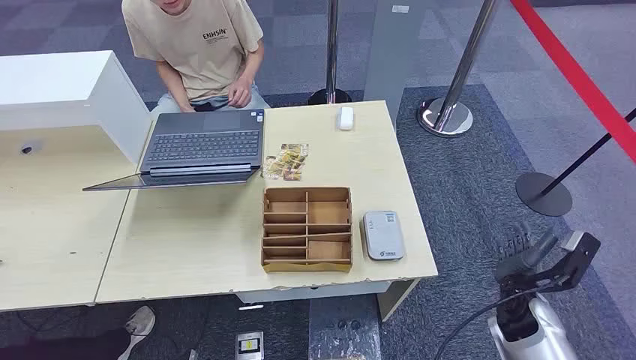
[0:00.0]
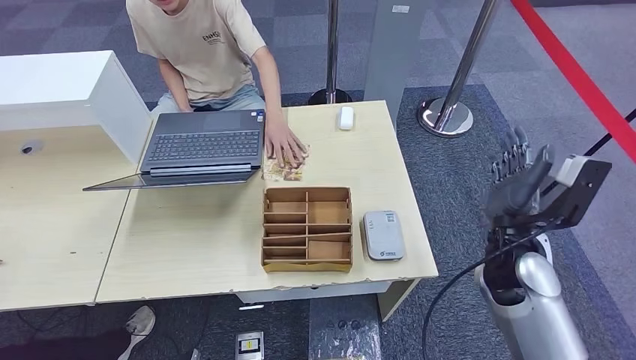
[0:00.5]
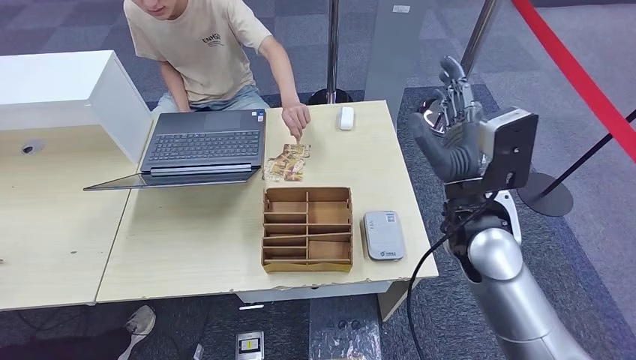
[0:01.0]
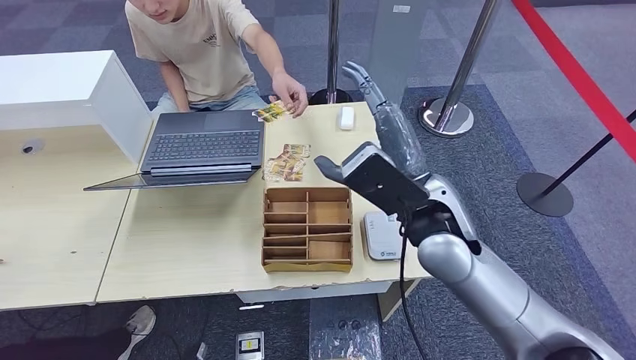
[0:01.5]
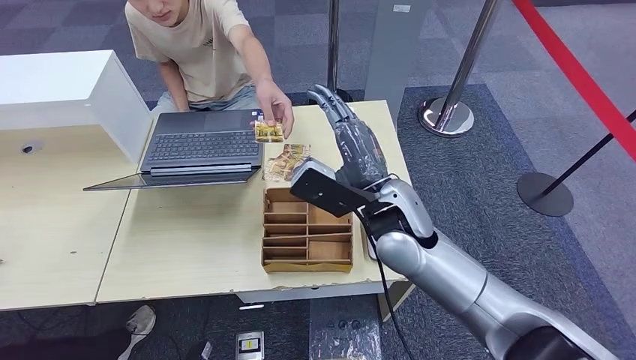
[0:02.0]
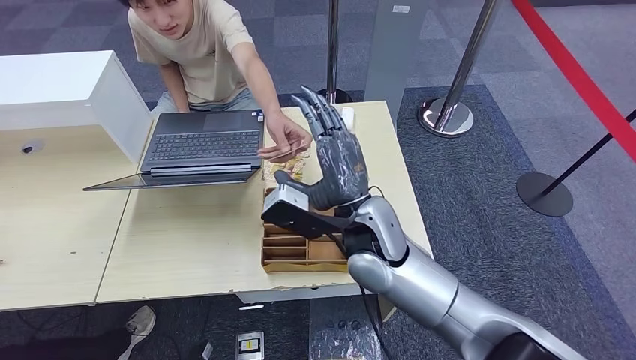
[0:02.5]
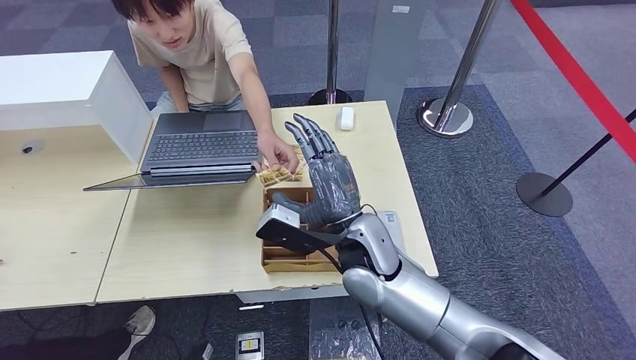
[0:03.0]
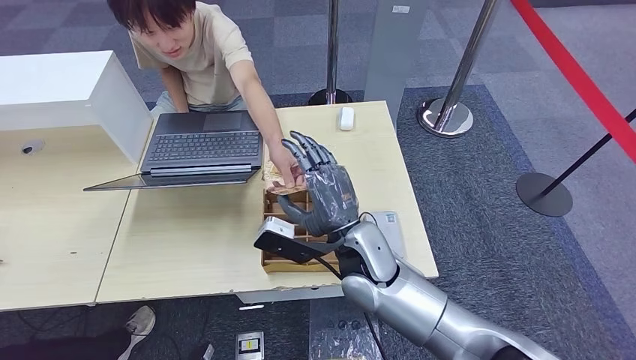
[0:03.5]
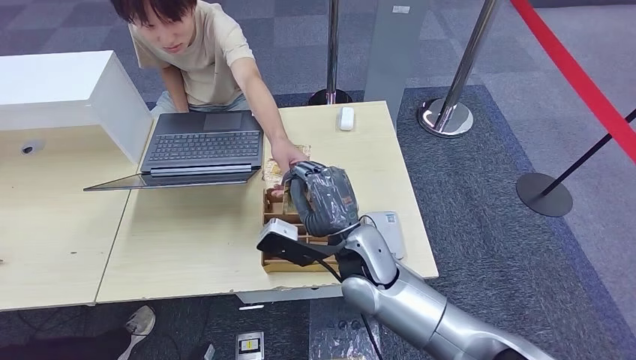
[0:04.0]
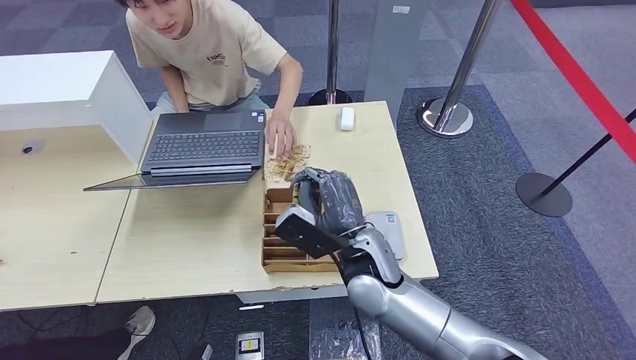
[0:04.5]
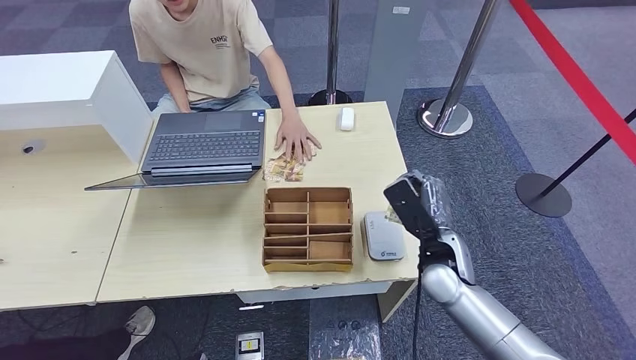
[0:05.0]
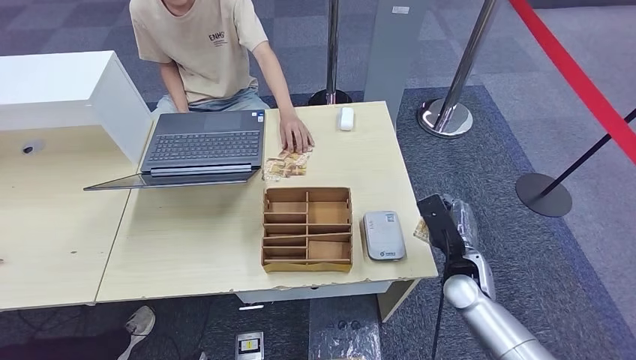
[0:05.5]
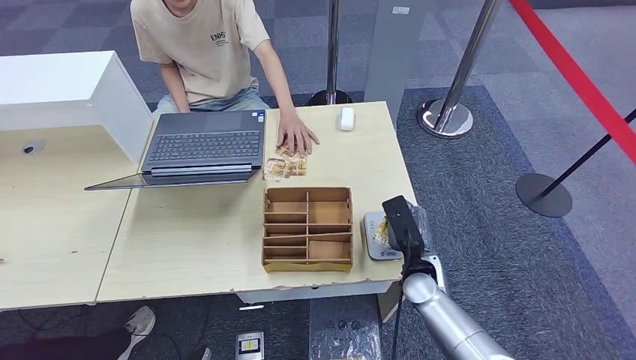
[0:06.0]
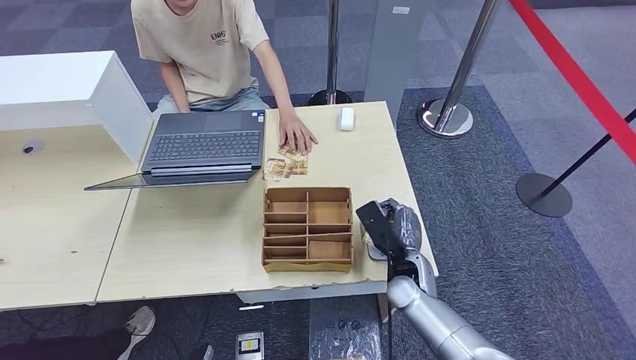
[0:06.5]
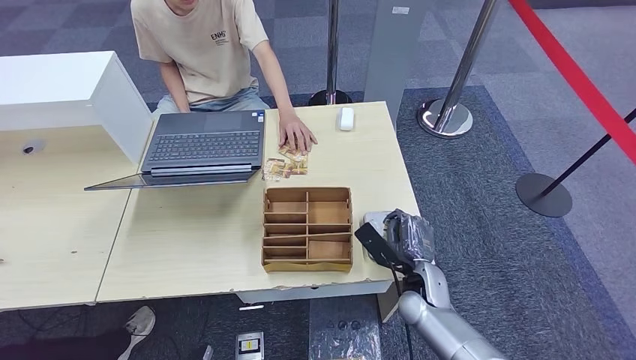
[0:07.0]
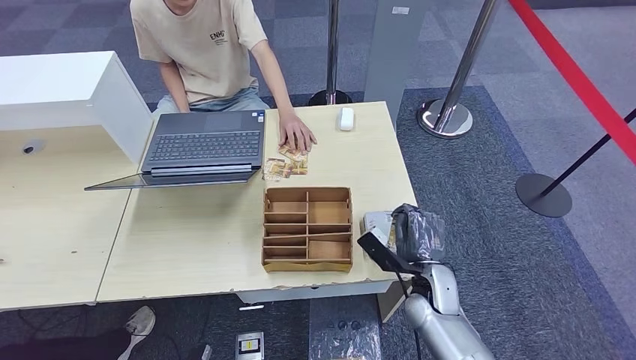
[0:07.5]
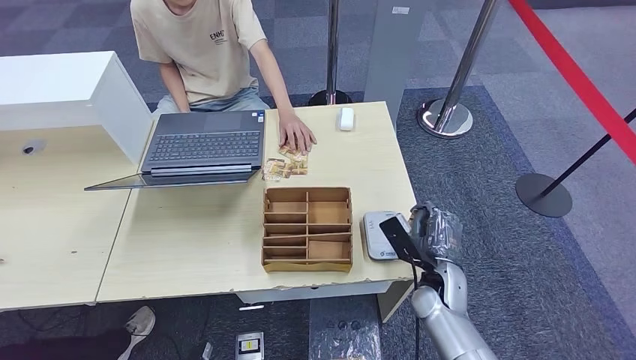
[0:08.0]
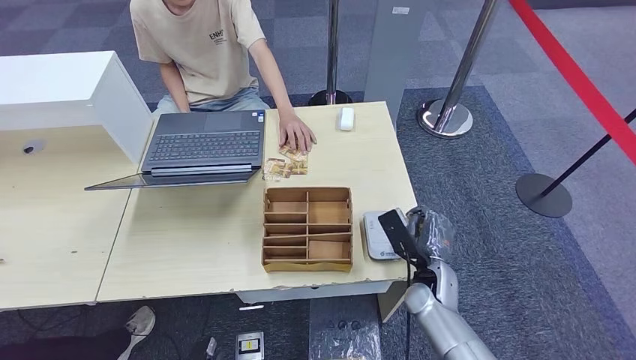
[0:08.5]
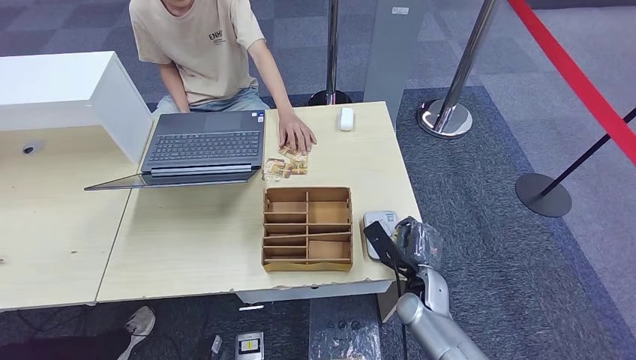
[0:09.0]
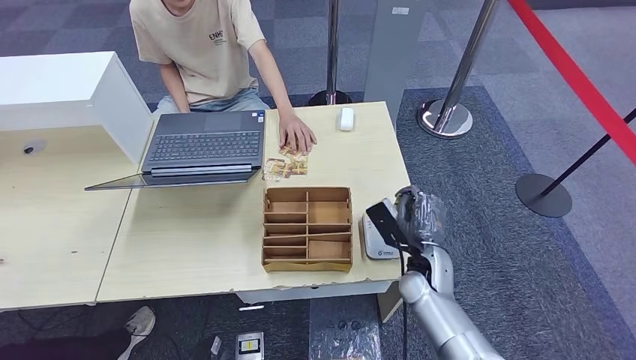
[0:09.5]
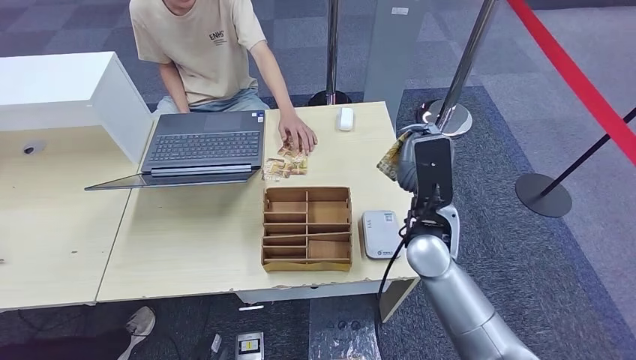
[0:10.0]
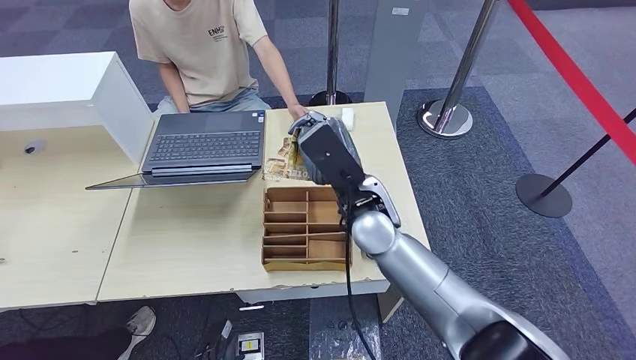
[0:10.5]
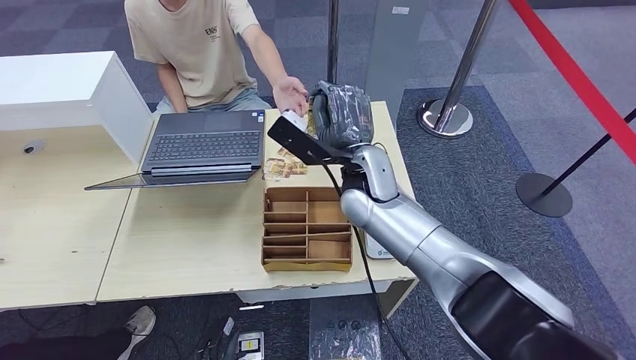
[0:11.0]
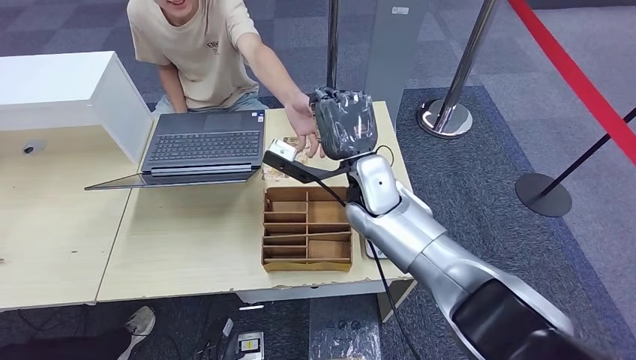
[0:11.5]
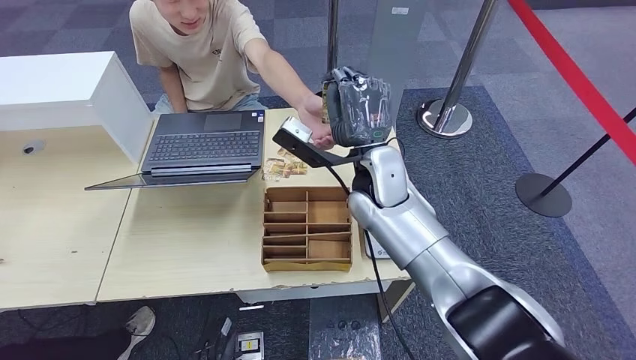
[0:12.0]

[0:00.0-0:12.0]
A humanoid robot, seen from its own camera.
Step, 0:00.0 to 0:04.0: Take the ID card from the person's hand.
Step, 0:04.5 to 0:06.5: Place the ID card on the card reader.
0:02.0 to 0:04.0: The right hand is displaced downward by about 10 cm.
0:04.0 to 0:06.0: The right hand is displaced to the right and downward by approximately 20 cm.
0:08.0 to 0:10.0: The right hand shifts roughly 20 cm upward and forward.
0:10.0 to 0:12.0: The right hand moves to the left, forward and upward, approximately 15 cm.

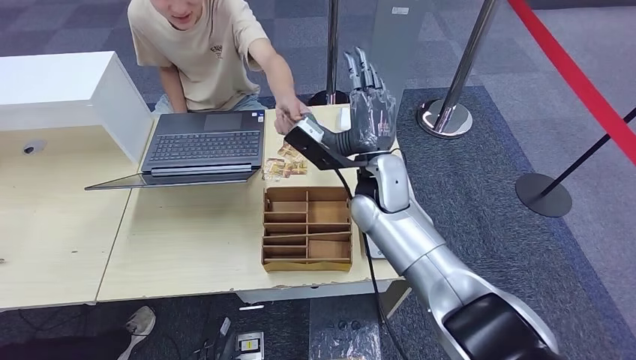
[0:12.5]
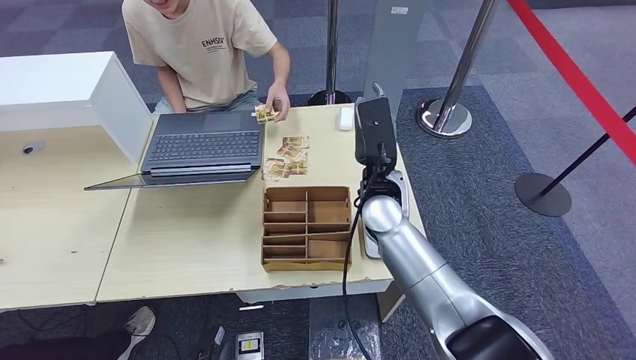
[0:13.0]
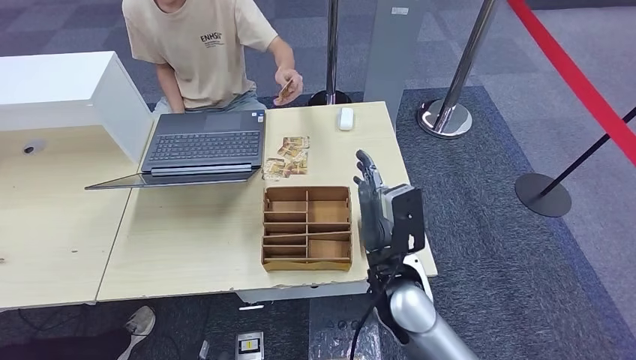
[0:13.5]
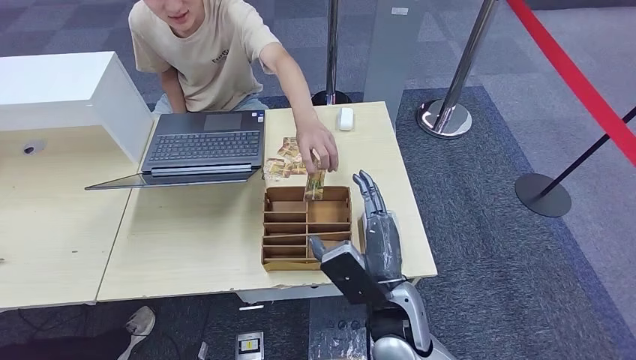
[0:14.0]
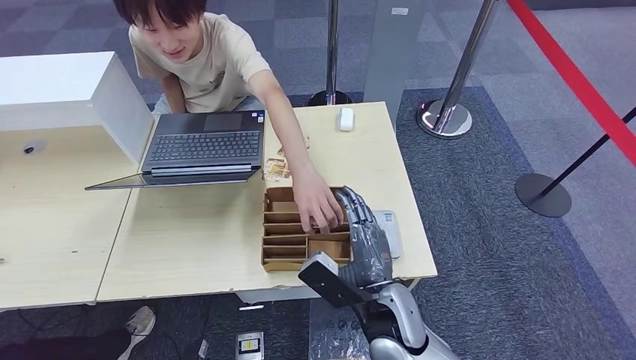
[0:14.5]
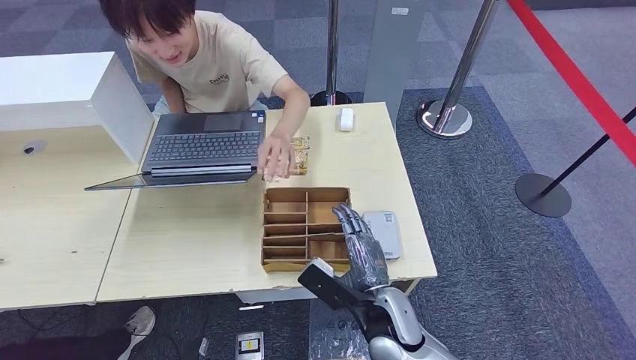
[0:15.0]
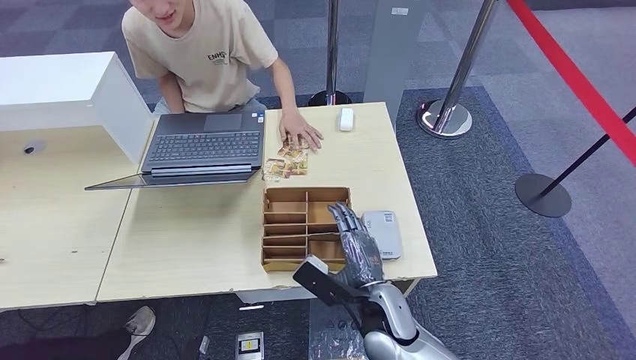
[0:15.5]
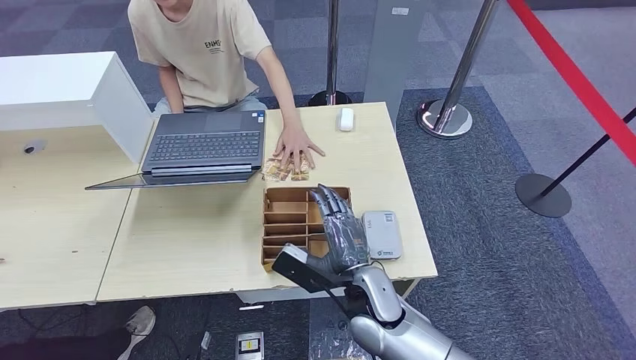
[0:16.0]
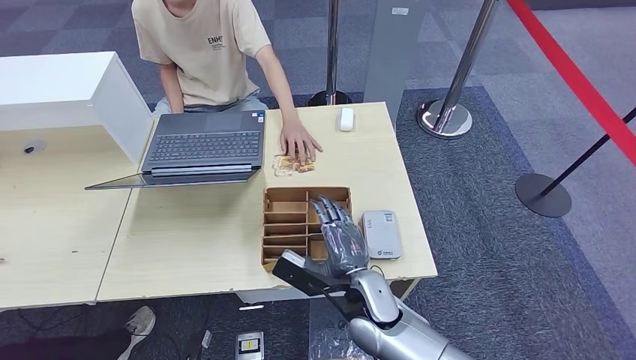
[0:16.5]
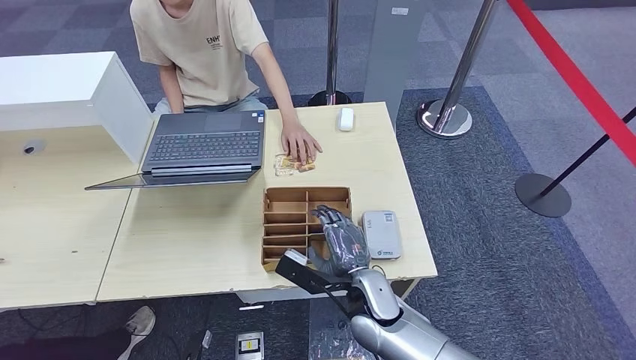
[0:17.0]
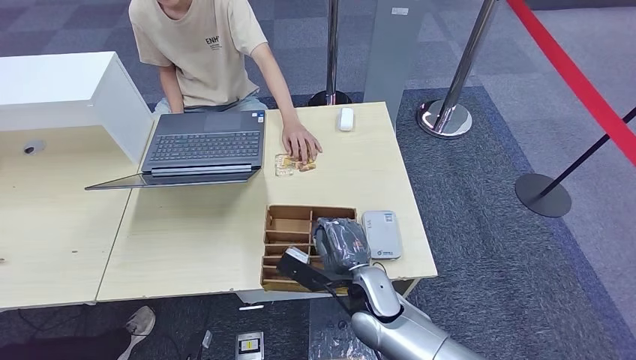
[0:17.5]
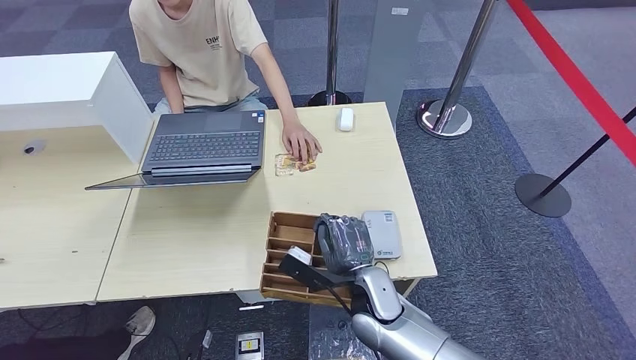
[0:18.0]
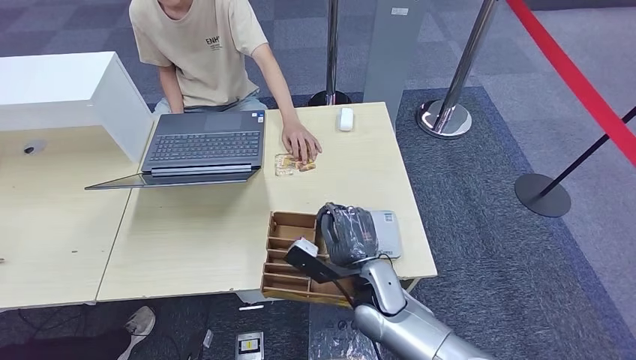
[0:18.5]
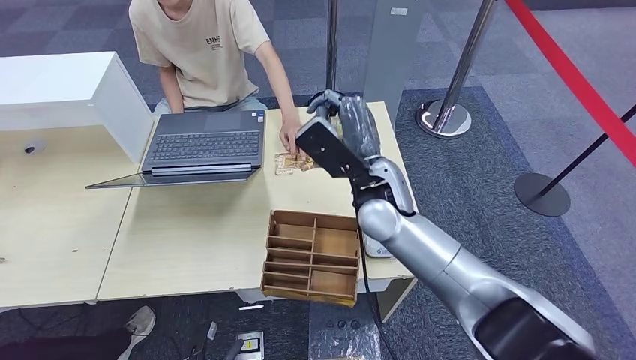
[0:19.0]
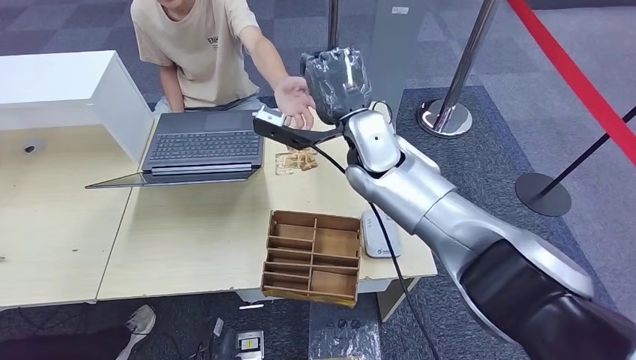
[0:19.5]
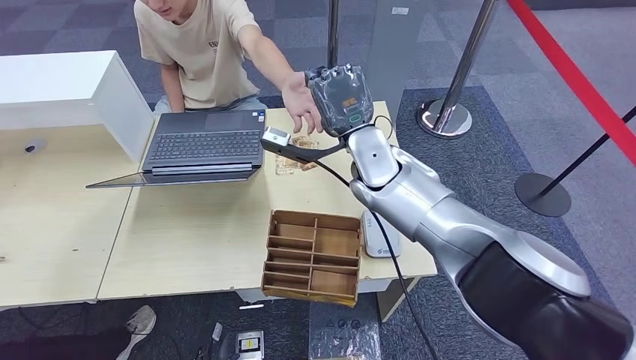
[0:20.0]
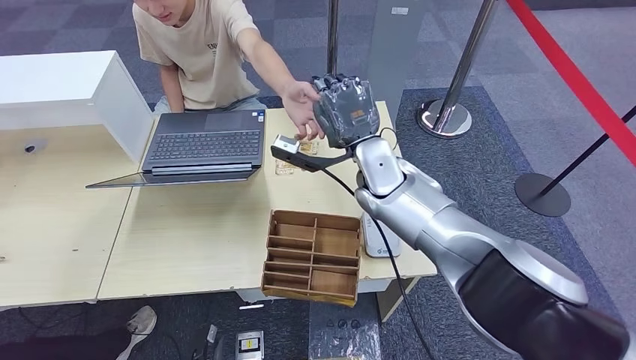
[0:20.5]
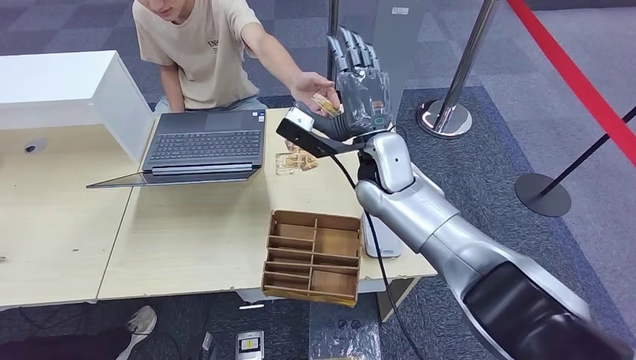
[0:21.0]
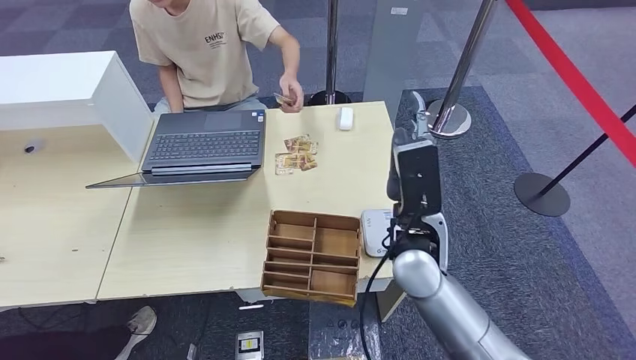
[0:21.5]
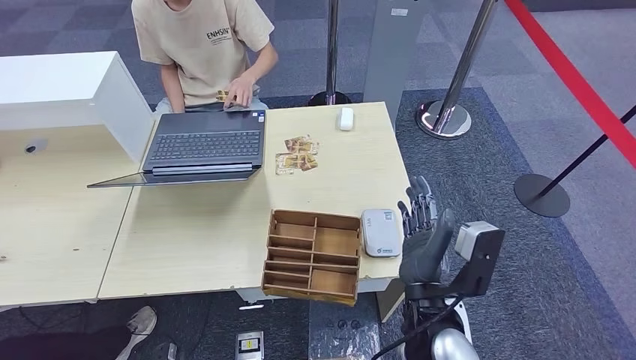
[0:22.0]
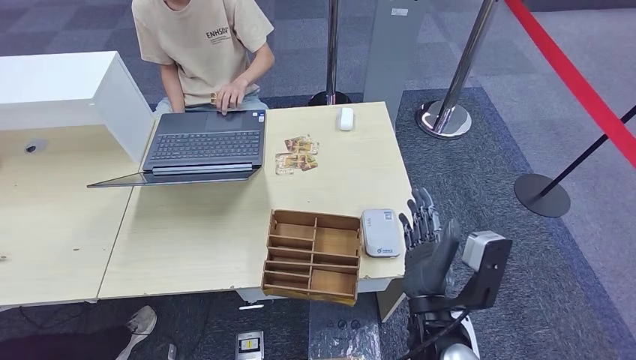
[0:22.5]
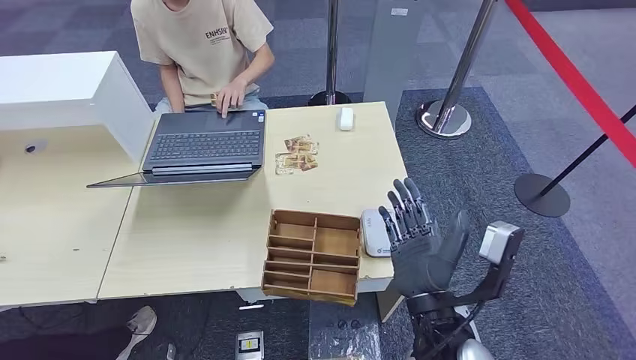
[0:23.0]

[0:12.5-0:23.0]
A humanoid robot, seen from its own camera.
Step, 0:13.0 to 0:18.5: Pick up the room key from the key card box.
Step, 0:19.0 to 0:22.5: Hand the room key to the person.
0:12.5 to 0:14.5: The left hand shifts by approximately 5 cm. The right hand travels backward and downward by approximately 20 cm.
0:14.5 to 0:16.5: The right hand moves roughly 5 cm.
0:16.5 to 0:19.0: The right hand goes about 20 cm upward and forward.
0:21.0 to 0:23.0: The right hand is displaced backward by roughly 25 cm.
